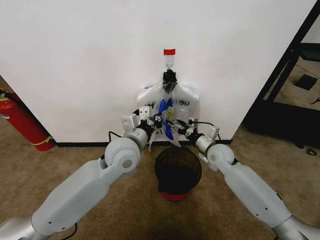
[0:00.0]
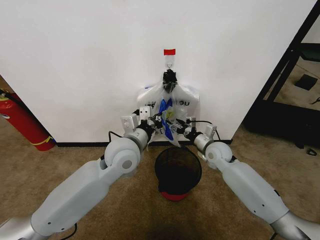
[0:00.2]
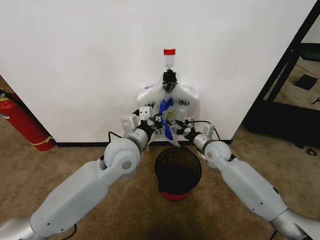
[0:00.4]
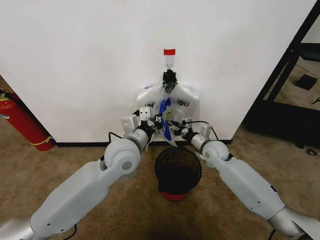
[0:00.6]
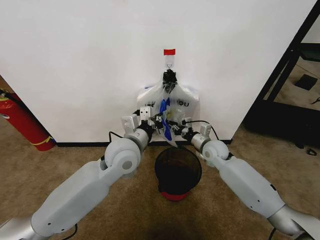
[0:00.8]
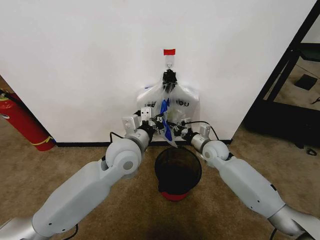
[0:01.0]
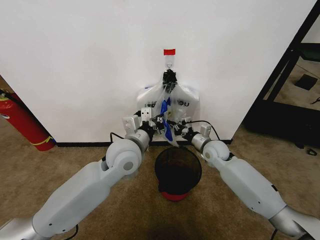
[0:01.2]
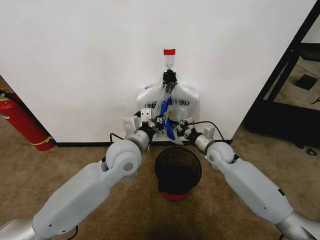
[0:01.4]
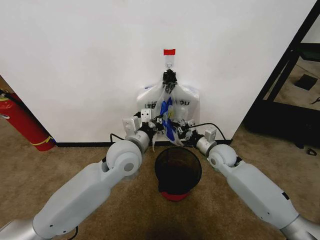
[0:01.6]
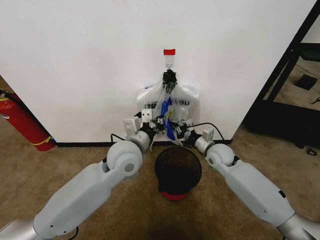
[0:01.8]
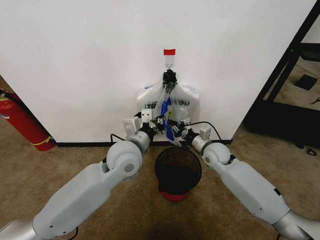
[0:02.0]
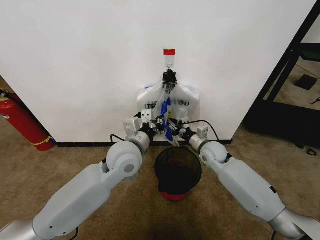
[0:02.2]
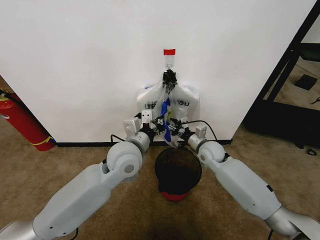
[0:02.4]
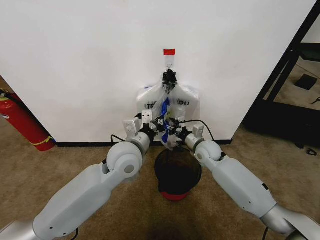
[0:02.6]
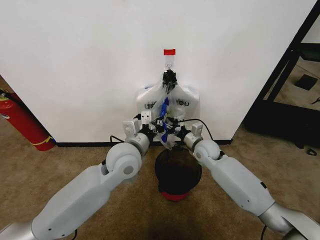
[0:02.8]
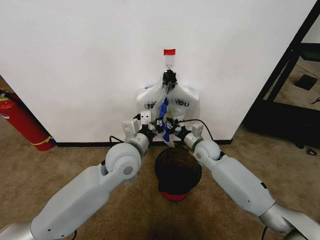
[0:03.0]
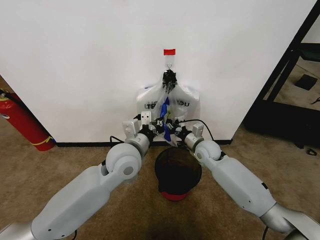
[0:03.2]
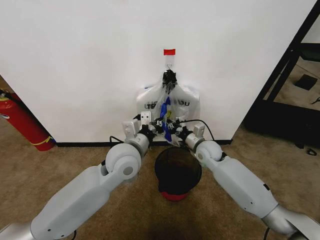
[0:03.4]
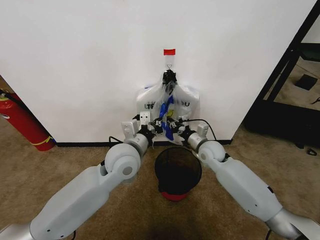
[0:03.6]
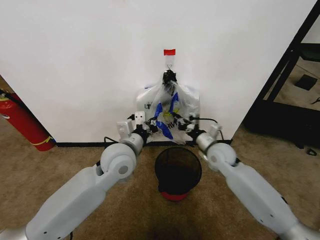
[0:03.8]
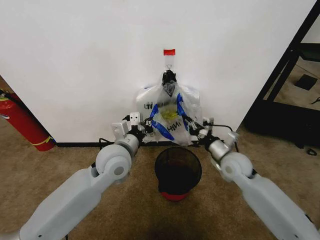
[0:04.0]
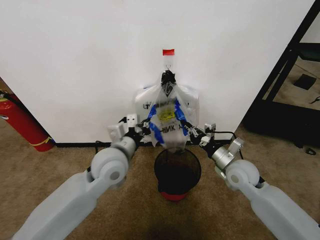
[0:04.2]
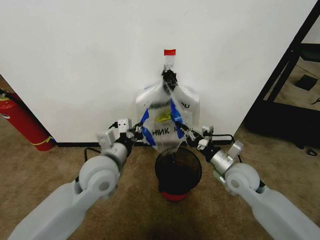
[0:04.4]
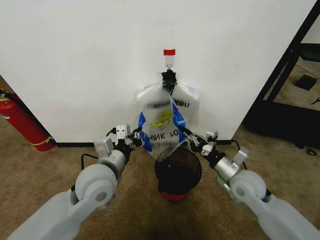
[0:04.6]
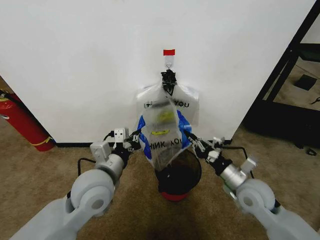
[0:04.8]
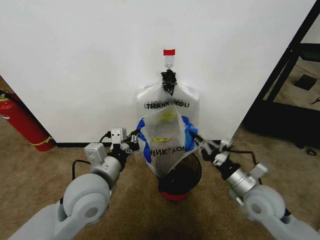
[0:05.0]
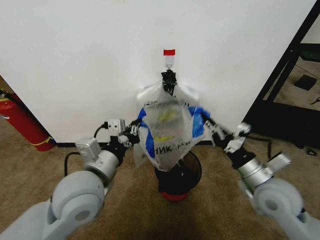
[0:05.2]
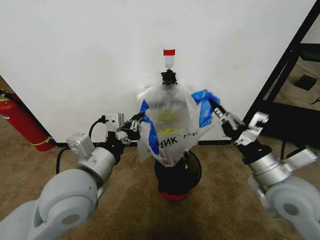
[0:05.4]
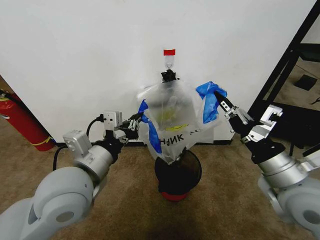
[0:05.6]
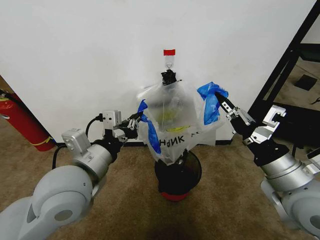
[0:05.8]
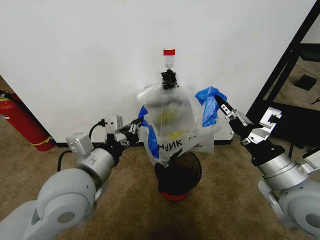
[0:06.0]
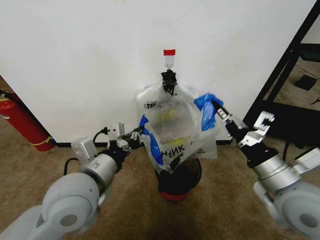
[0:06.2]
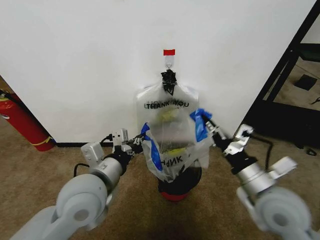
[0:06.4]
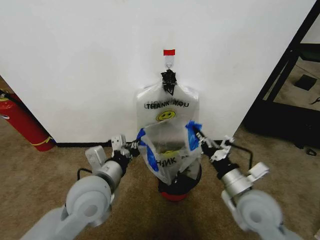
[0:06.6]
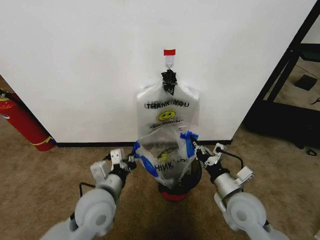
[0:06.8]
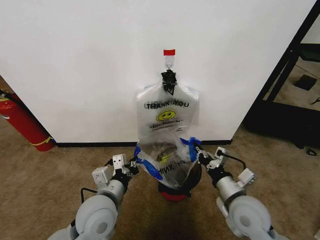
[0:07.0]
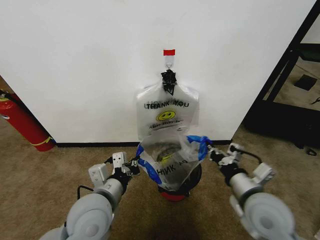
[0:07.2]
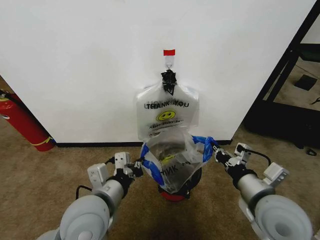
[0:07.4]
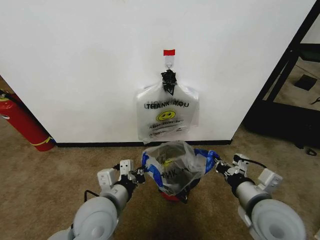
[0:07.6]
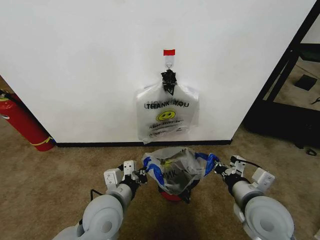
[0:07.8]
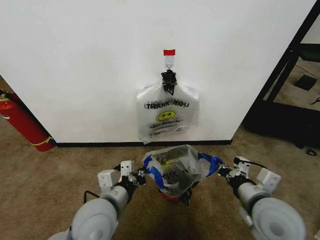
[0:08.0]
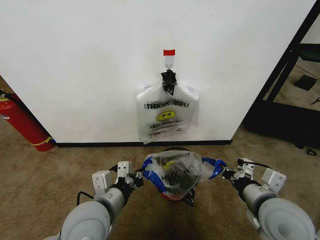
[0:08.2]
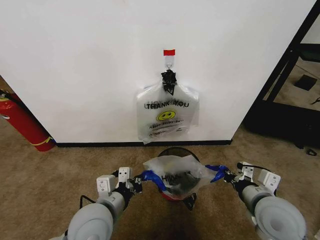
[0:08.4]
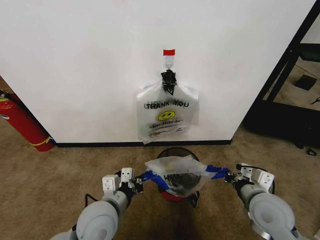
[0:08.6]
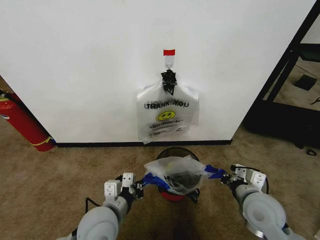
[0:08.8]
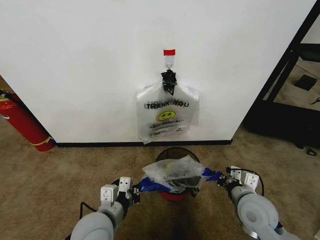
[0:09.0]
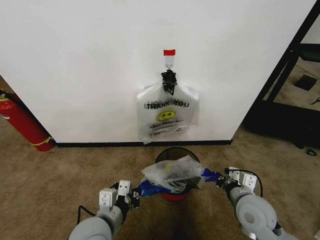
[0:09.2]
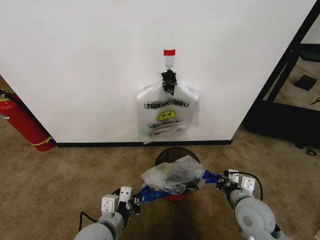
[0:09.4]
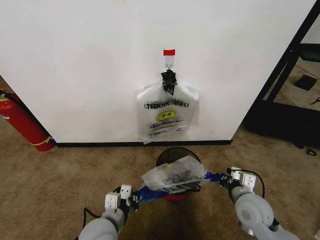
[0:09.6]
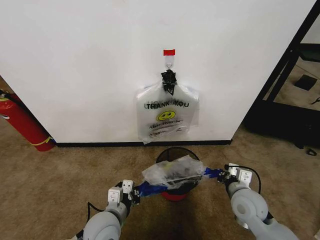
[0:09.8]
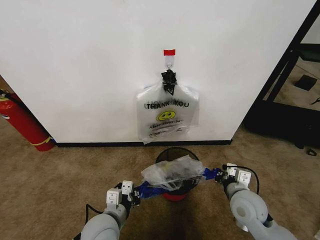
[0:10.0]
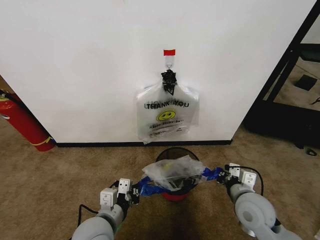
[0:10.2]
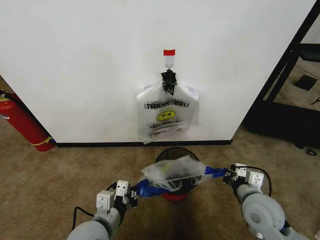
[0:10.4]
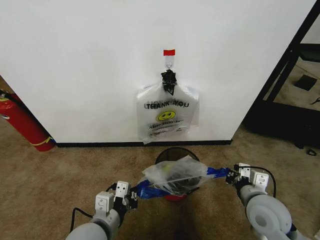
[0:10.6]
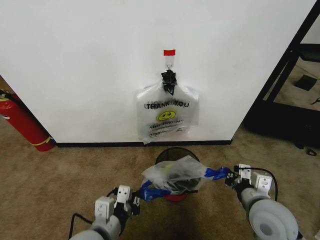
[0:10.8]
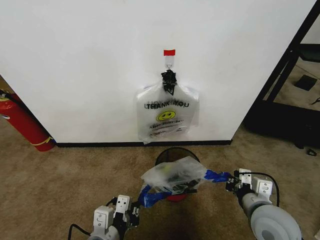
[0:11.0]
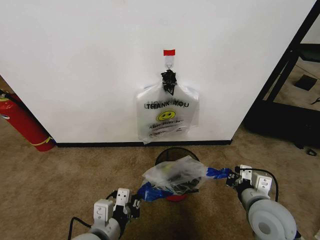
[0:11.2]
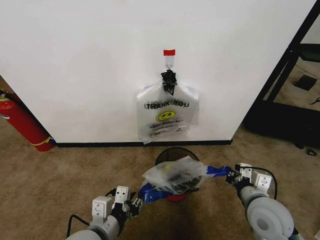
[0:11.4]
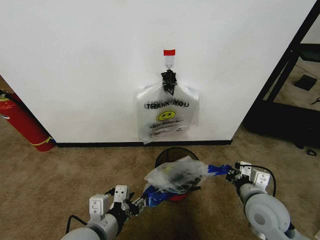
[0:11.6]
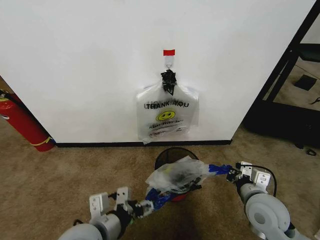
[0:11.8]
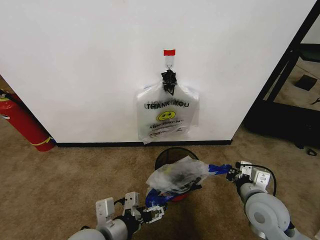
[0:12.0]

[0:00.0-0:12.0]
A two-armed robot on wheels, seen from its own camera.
Task of the whole recording: Pick up the garbage bag from the wall and place it over the trash bin.
0:00.0 to 0:01.6: The right gripper closes.
0:01.6 to 0:03.0: The right gripper is displaced to the left by roughly 5 cm, and opens.
0:03.0 to 0:04.4: The left gripper goes about 5 cm to the left, while the right gripper shifts some 15 cm backward and to the right, and closes.
0:04.4 to 0:06.0: The right gripper is displaced upward and backward by approximately 20 cm. Meanwhile the left gripper heads backward and upward, covering some 10 cm.
0:06.0 to 0:07.6: The two grippers go approximately 10 cm downward.
0:07.6 to 0:09.0: The right gripper heads downward, covering approximately 10 cm.
0:09.0 to 0:10.4: The grippers move only a little.
0:10.4 to 0:12.0: The left gripper opens.

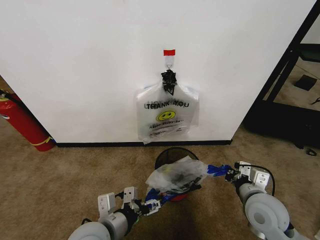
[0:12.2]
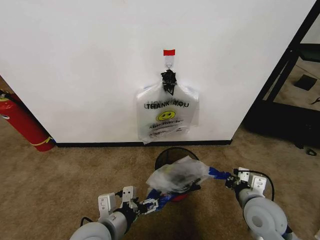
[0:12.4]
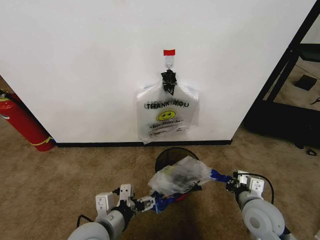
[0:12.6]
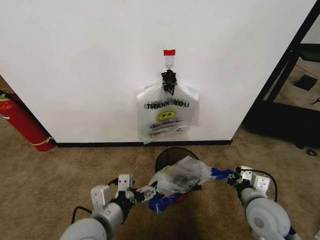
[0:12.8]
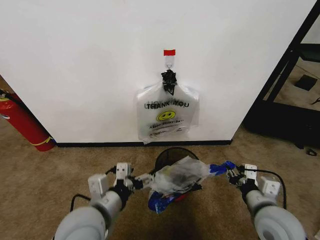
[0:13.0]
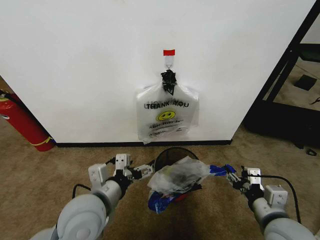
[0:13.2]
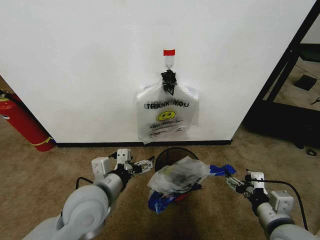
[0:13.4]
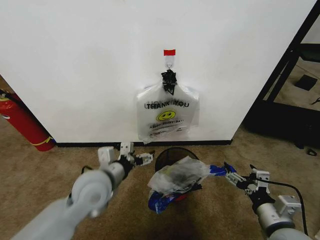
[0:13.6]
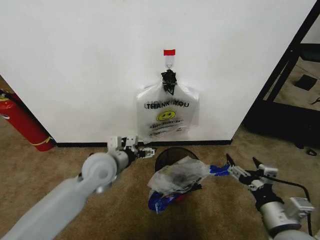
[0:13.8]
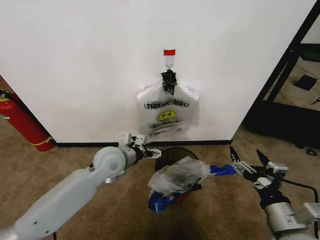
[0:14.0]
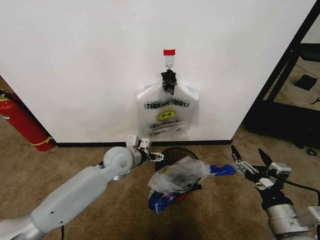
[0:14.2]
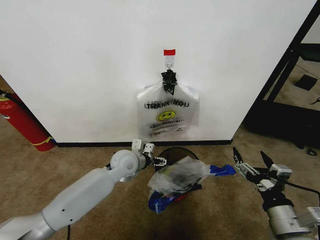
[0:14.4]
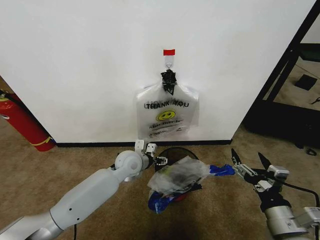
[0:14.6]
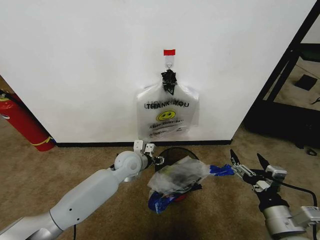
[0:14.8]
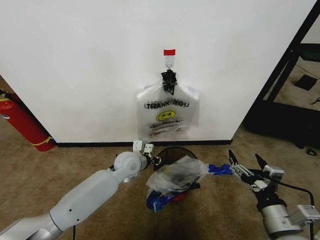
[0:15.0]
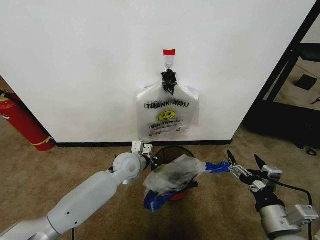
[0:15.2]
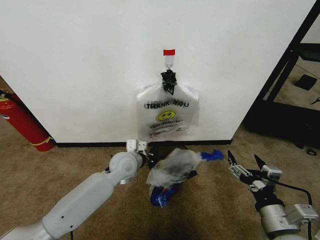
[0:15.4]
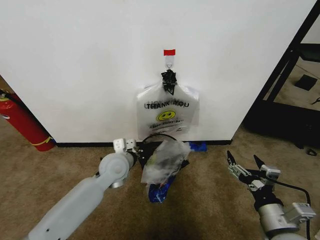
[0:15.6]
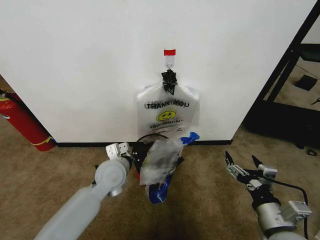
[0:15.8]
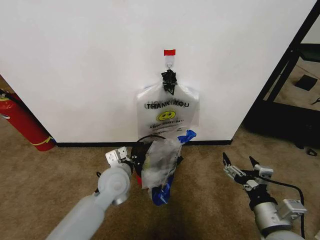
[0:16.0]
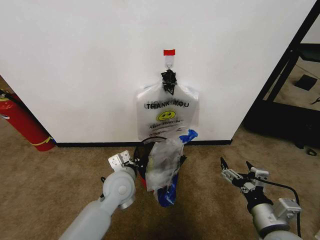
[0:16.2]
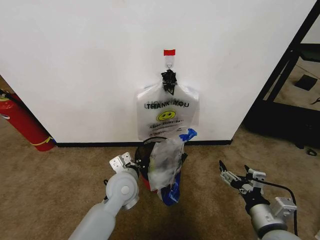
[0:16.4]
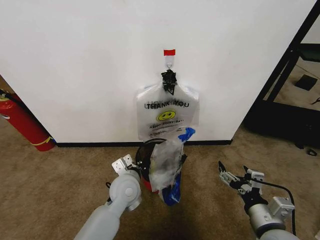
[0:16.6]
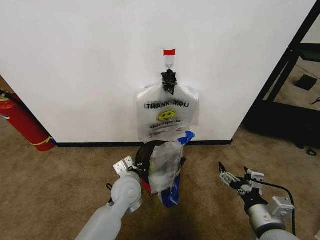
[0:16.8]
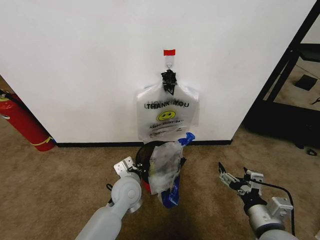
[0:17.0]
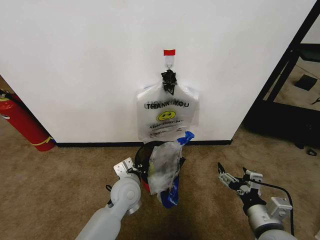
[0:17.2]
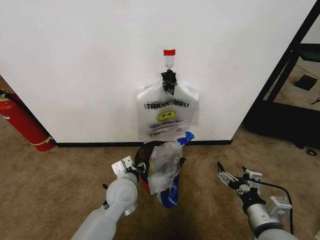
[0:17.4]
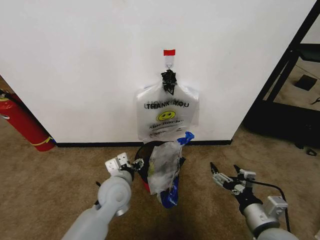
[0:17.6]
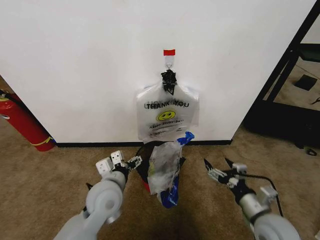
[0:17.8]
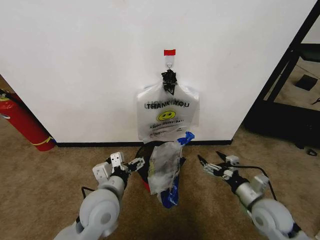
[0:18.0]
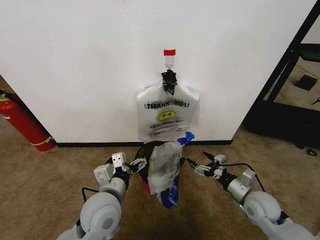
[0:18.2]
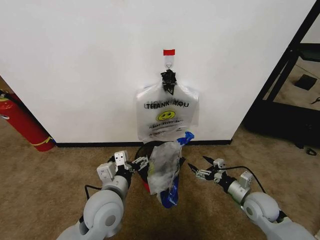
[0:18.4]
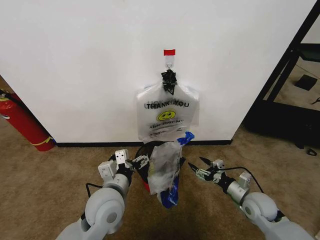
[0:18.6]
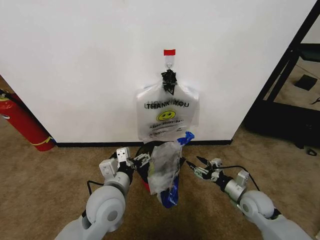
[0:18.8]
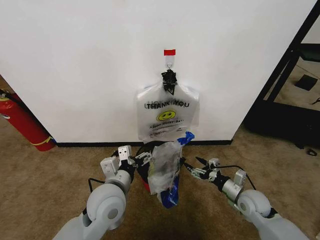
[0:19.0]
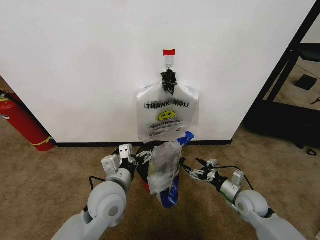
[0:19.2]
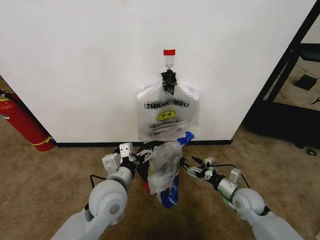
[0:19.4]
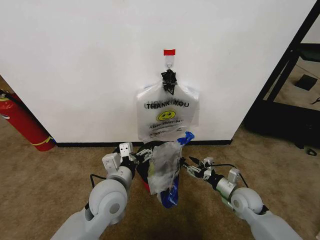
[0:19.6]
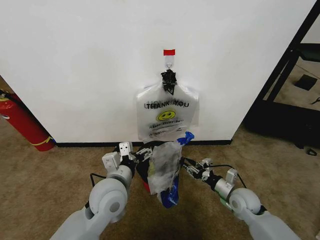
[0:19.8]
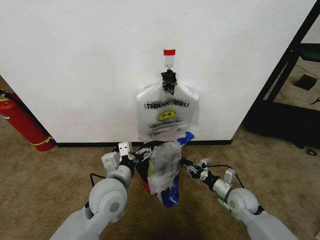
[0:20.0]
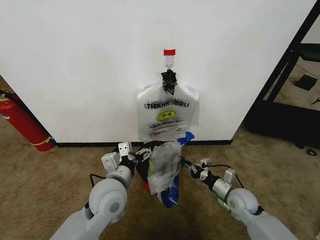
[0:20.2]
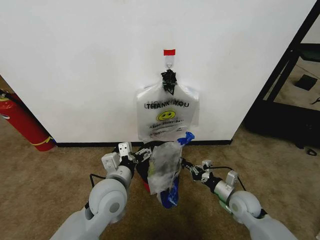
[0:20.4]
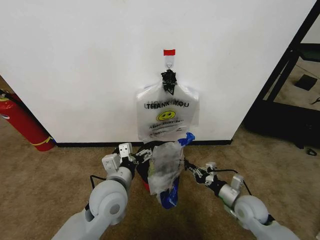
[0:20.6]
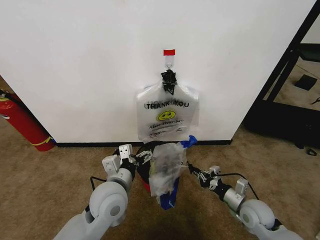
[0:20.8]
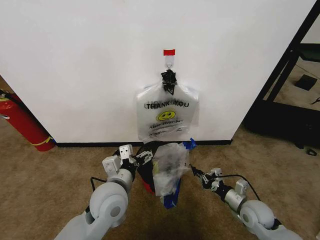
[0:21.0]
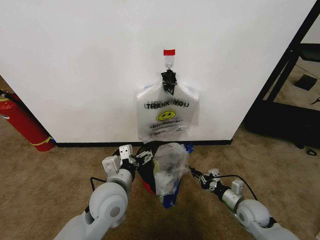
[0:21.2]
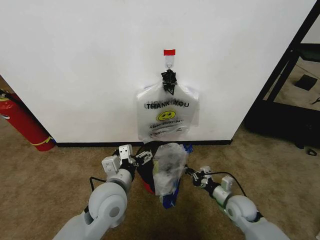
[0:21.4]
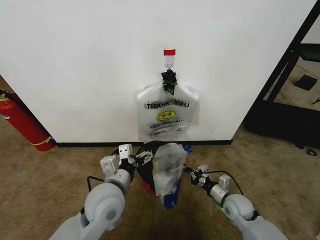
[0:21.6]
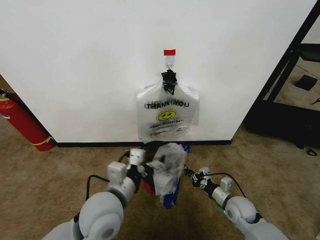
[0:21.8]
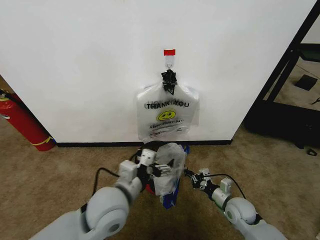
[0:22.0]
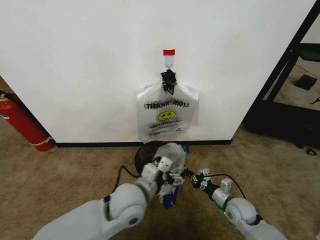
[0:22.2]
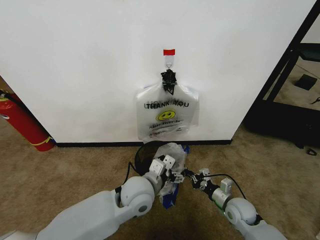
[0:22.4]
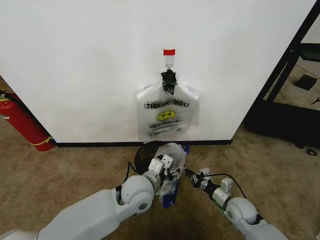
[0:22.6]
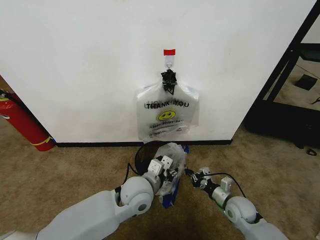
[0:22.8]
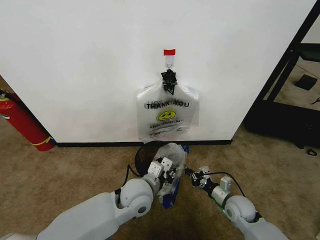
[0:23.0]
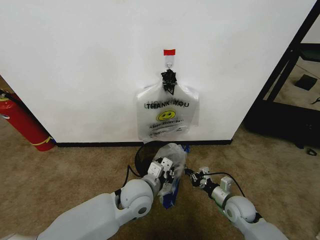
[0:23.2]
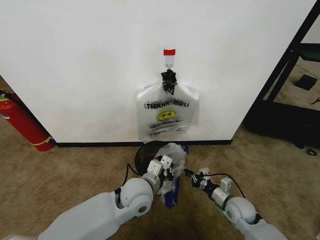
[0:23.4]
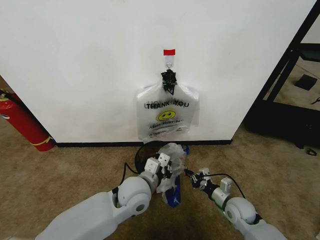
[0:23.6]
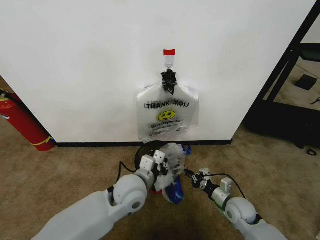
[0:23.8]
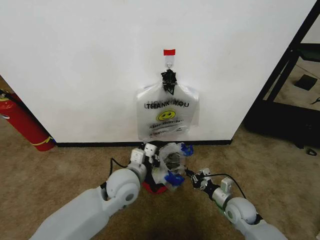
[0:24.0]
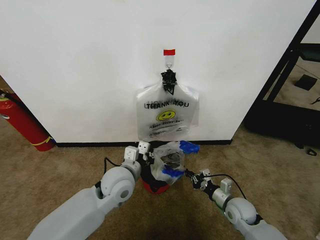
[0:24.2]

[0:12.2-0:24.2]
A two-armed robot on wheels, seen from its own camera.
Task of the whole recording: Pick up the garbage bag from the wall and place it over the trash bin.
0:12.2 to 0:13.8: The left gripper goes approximately 20 cm forward; the right gripper shifts approximately 10 cm backward, and opens.
0:13.8 to 0:15.2: The left gripper heads downward, forward and to the right, covering some 10 cm, and closes.
0:15.2 to 0:16.6: The left gripper travels backward by about 10 cm.
0:16.6 to 0:18.2: The right gripper heads forward and downward, covering some 15 cm. Meanwhile the left gripper is displaced backward and upward by roughly 10 cm, and opens.
0:18.2 to 0:19.8: The right gripper shifts by roughly 5 cm, and closes.
0:19.8 to 0:21.2: The right gripper closes up.
0:21.2 to 0:22.6: The left gripper goes about 5 cm to the right.
0:22.6 to 0:24.2: The left gripper moves to the left, some 5 cm, and closes its fingers.
